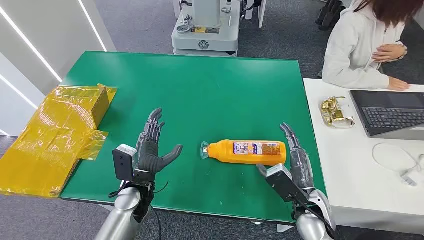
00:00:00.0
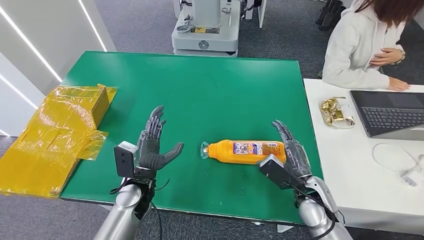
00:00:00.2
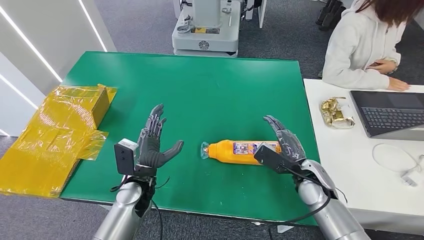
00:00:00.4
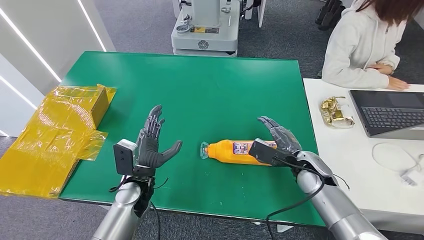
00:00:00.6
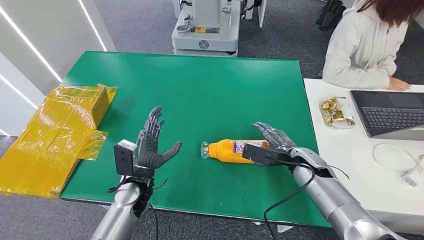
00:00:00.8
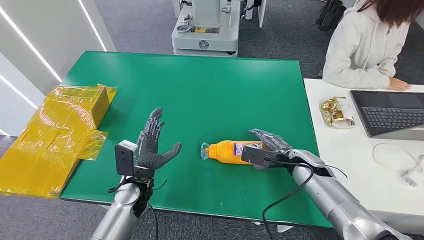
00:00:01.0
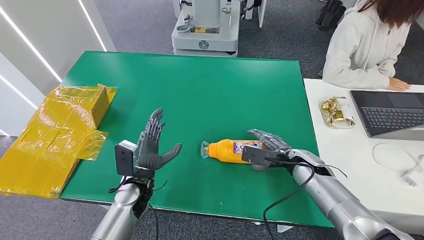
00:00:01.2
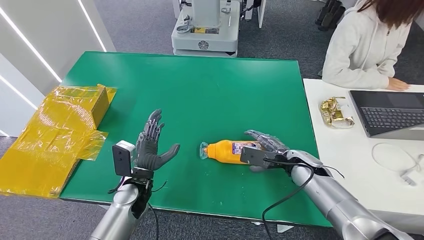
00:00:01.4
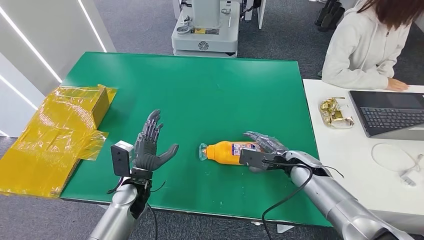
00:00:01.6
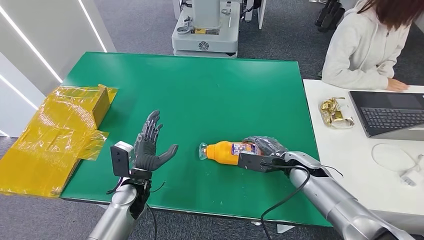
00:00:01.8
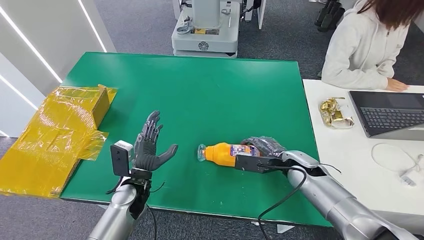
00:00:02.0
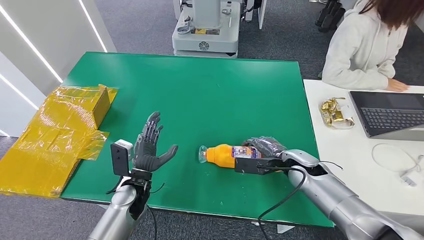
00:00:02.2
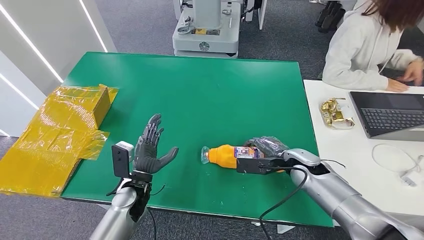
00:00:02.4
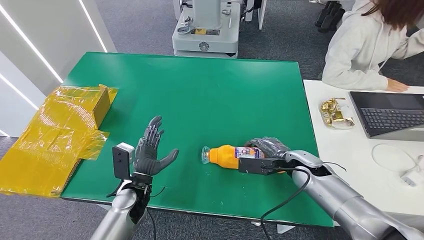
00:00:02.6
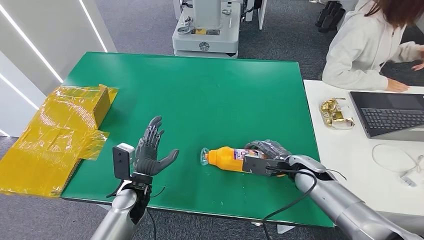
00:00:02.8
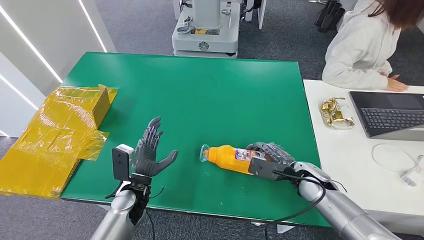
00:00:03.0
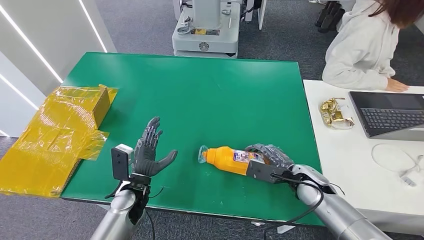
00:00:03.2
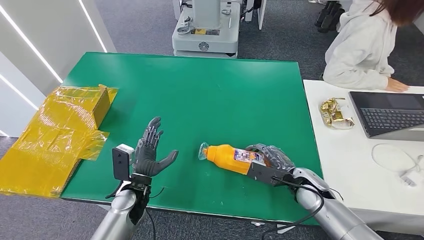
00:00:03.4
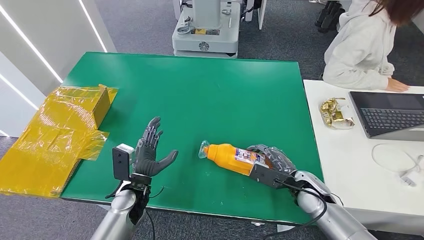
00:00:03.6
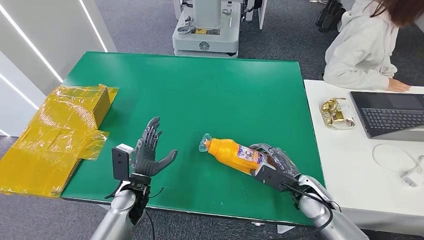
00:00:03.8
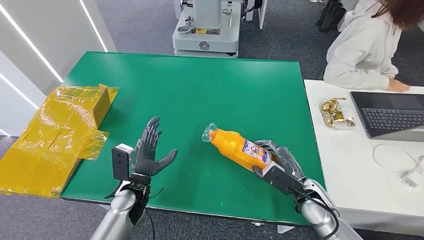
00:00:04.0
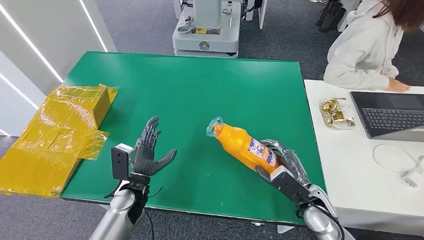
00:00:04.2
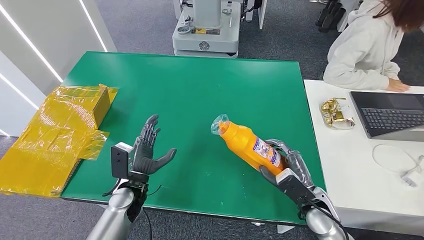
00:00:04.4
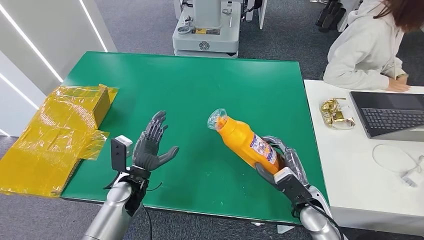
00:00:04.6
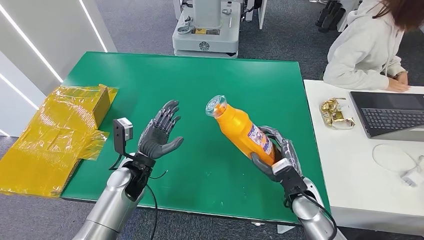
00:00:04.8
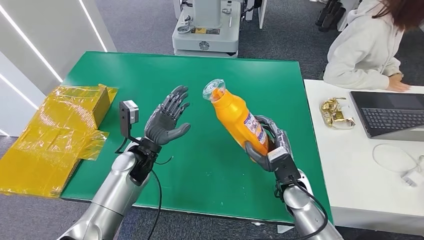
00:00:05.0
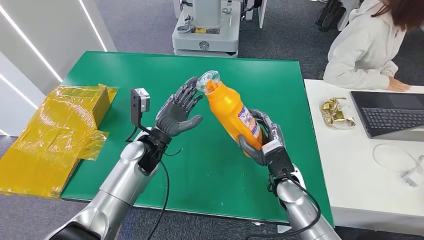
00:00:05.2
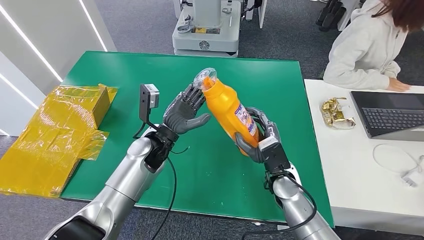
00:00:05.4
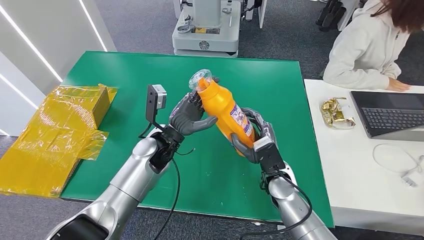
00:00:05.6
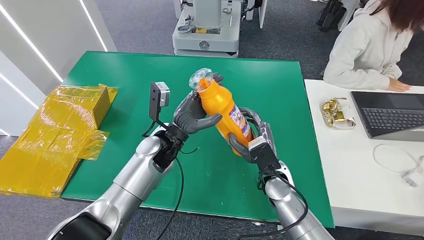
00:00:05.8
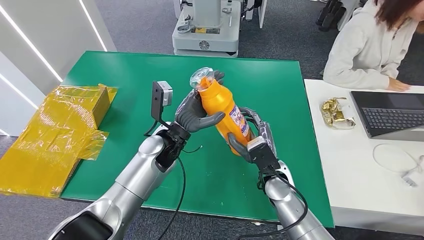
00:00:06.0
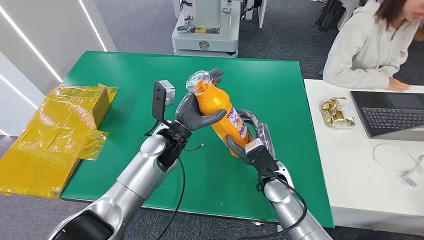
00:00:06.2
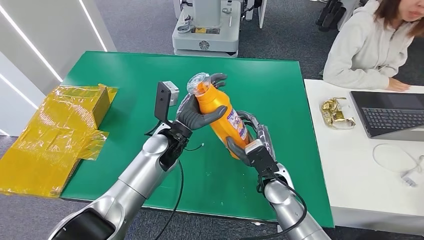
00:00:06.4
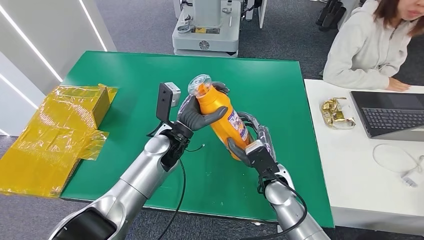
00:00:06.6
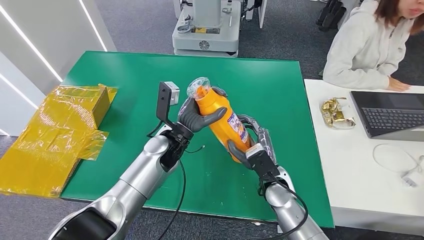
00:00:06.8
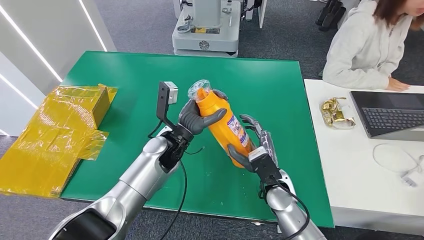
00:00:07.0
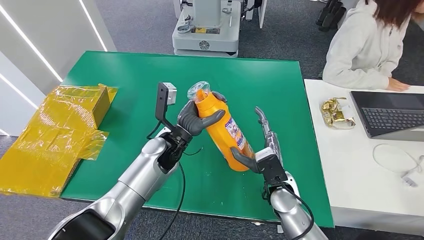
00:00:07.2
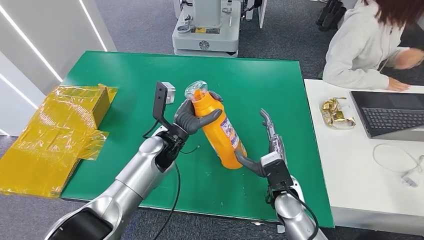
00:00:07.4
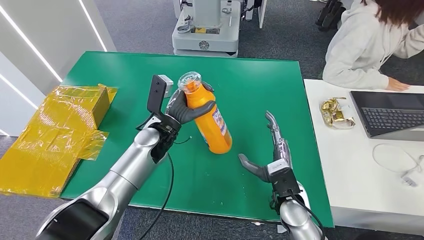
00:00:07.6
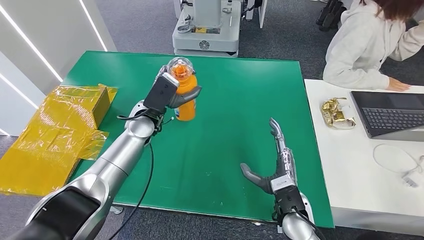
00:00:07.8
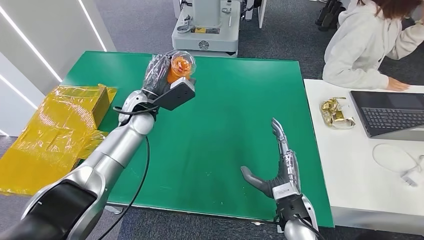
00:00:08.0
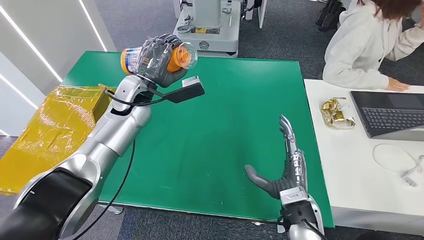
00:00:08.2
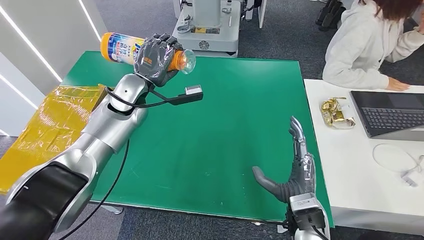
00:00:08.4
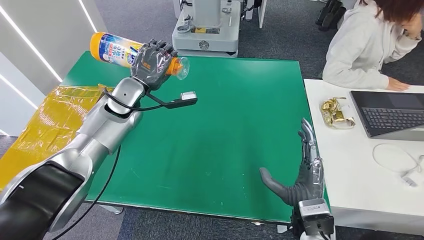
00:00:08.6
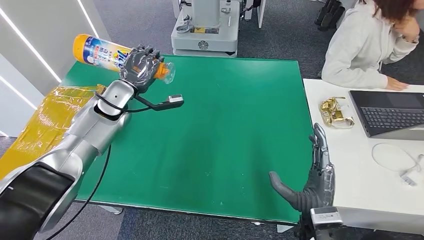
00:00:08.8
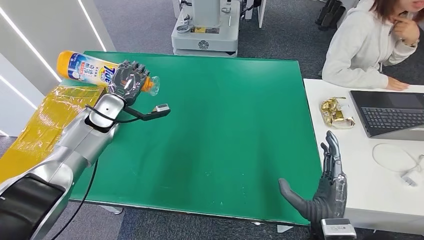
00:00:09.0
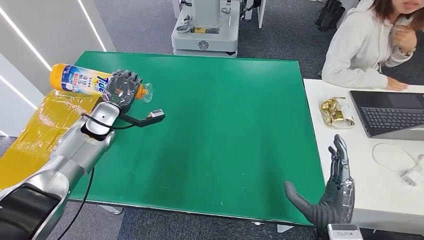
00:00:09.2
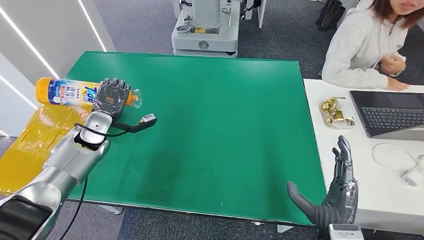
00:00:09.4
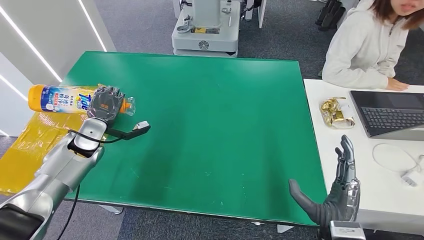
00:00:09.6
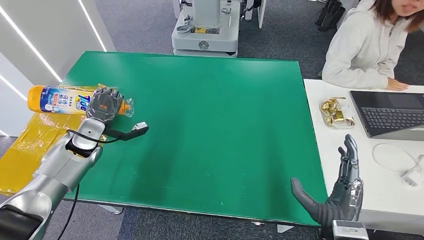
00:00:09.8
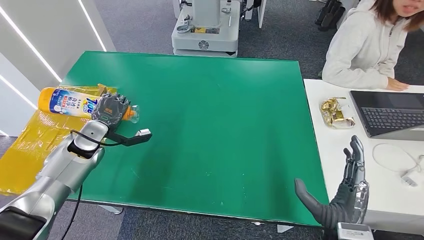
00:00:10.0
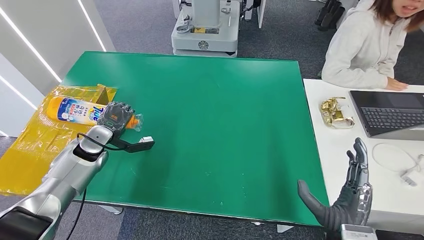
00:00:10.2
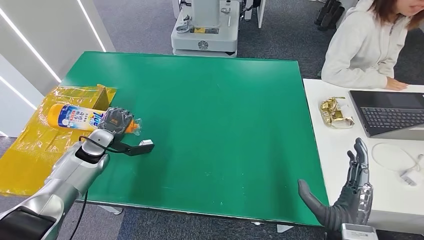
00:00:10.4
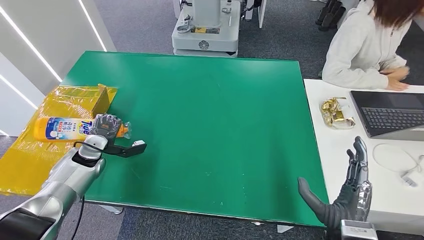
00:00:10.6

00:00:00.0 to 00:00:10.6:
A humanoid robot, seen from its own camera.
Step, 00:00:00.0 to 00:00:05.4: Pick up the bottle from the table.
00:00:01.6 to 00:00:03.0: The hands stay close to where they were, moving slightly.
00:00:03.0 to 00:00:04.6: The right hand heads backward, covering some 5 cm.
00:00:04.6 to 00:00:06.0: The left hand shifts about 15 cm upward, to the right and forward; the right hand heads to the left, covering some 10 cm.
00:00:06.0 to 00:00:07.6: The right hand moves about 5 cm.
00:00:09.0 to 00:00:10.6: The left hand is displaced downward, to the left and backward by some 15 cm.

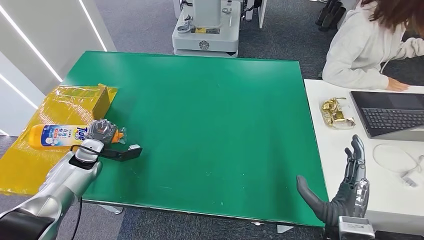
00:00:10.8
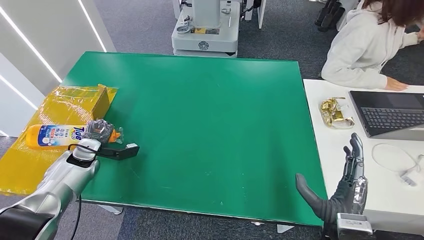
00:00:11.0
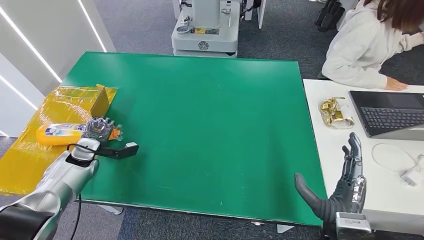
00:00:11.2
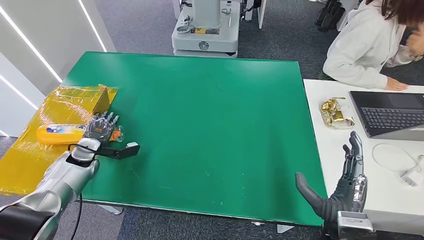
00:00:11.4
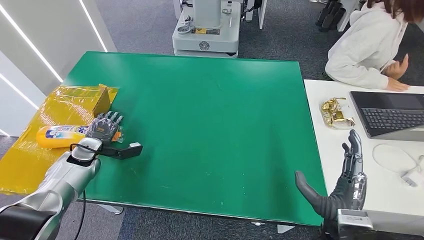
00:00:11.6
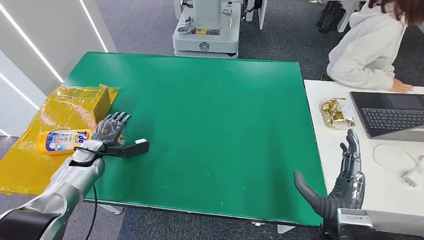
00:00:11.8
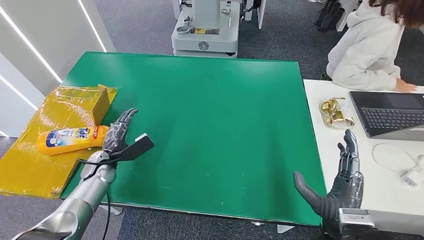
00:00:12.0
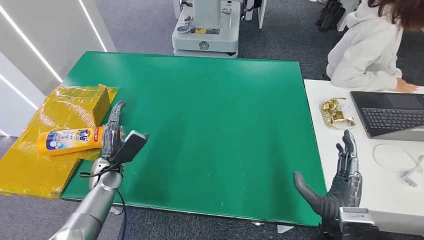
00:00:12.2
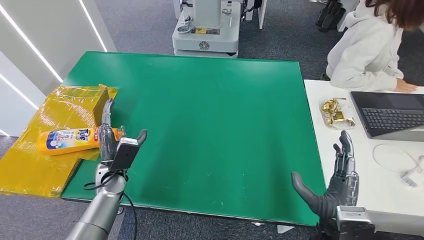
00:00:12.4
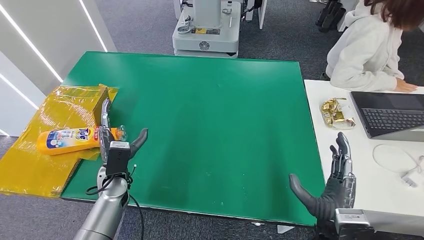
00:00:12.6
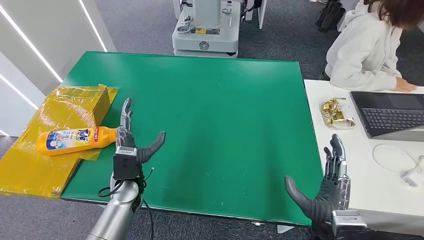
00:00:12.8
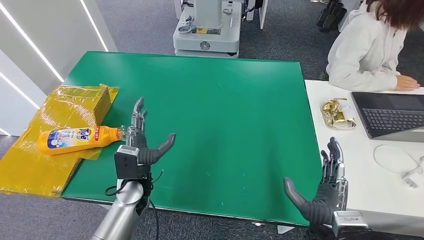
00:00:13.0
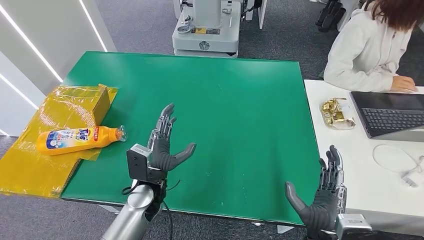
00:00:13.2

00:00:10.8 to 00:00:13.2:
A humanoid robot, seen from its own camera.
Step, 00:00:10.8 to 00:00:13.0: Turn the bottle to the front side.
00:00:10.8 to 00:00:12.0: The left hand shifts by approximately 5 cm.
00:00:12.0 to 00:00:13.2: The left hand moves to the right, approximately 20 cm.
